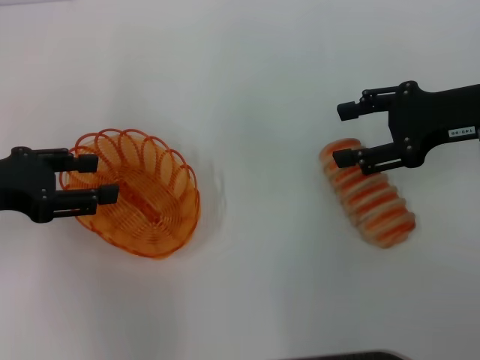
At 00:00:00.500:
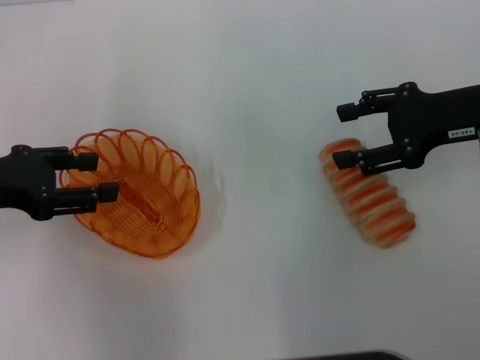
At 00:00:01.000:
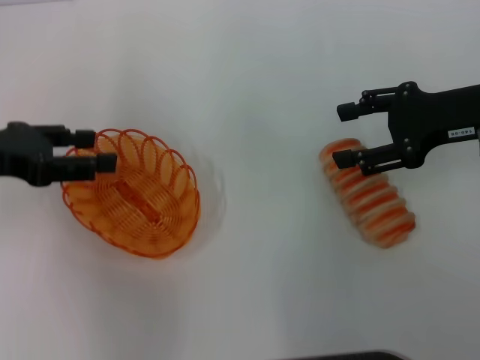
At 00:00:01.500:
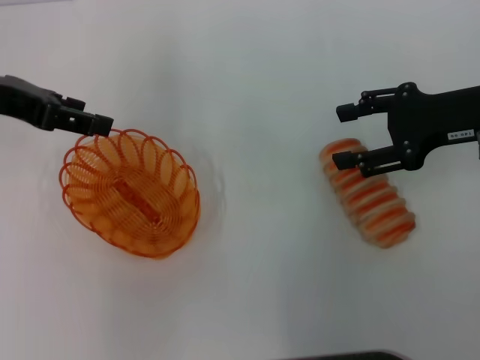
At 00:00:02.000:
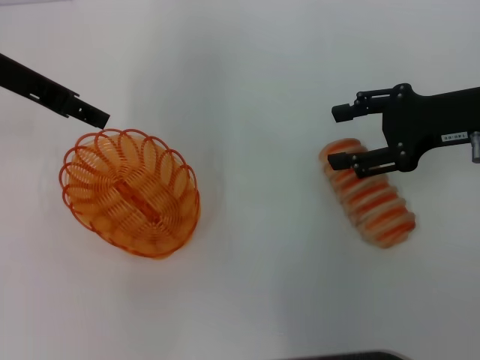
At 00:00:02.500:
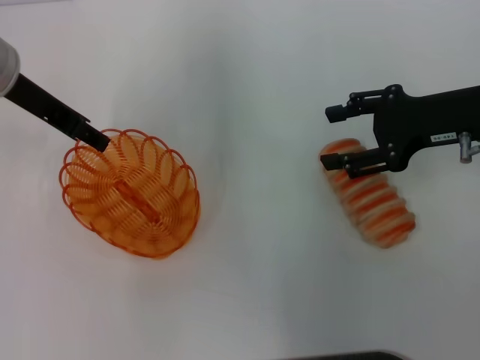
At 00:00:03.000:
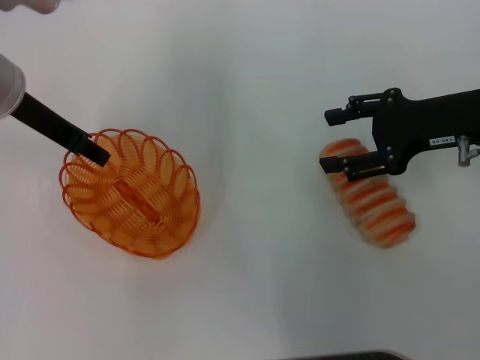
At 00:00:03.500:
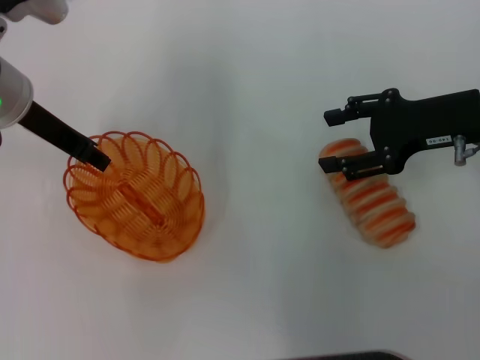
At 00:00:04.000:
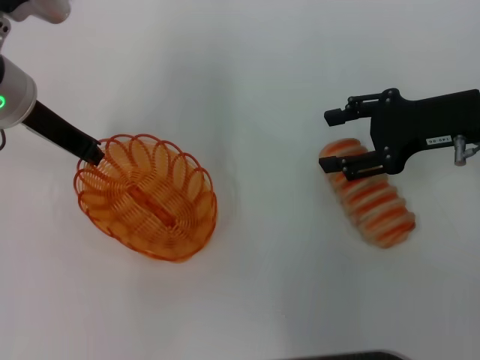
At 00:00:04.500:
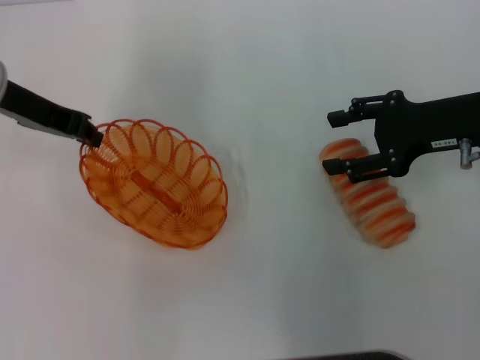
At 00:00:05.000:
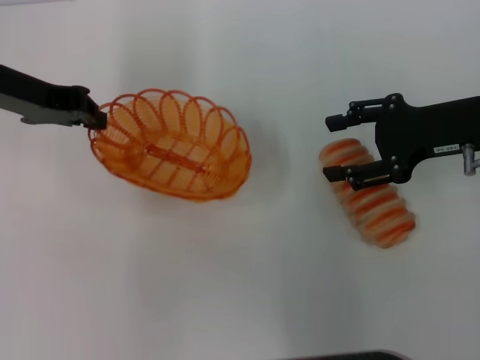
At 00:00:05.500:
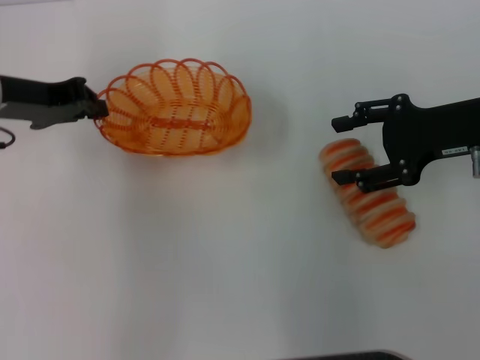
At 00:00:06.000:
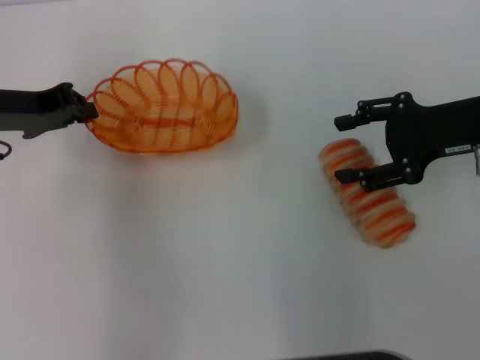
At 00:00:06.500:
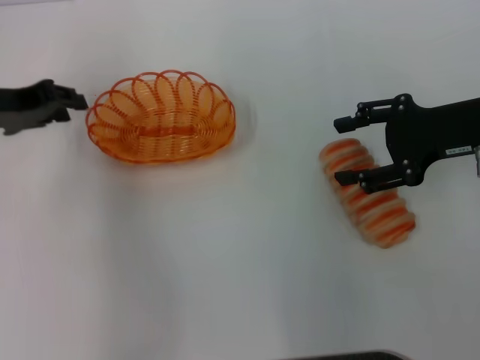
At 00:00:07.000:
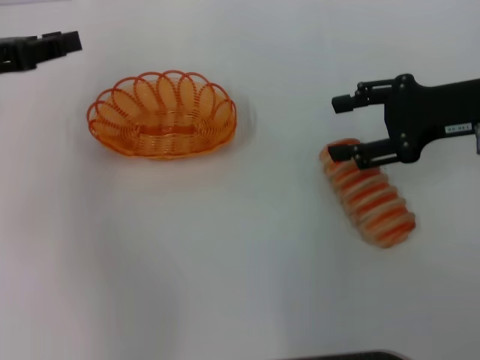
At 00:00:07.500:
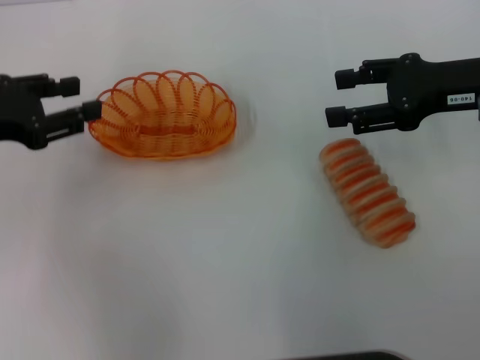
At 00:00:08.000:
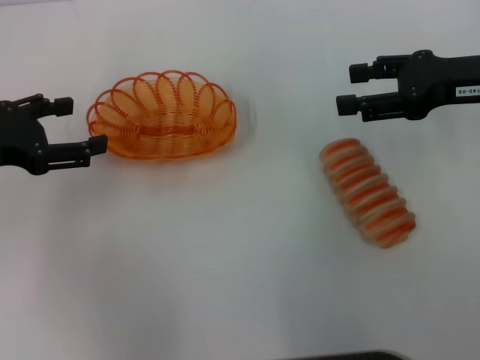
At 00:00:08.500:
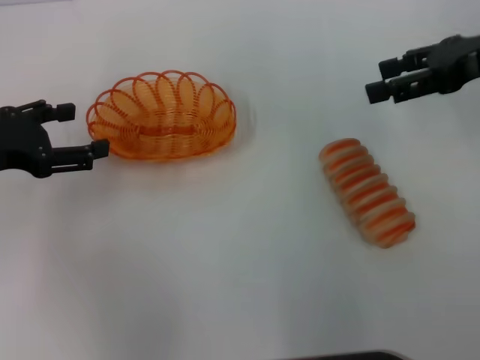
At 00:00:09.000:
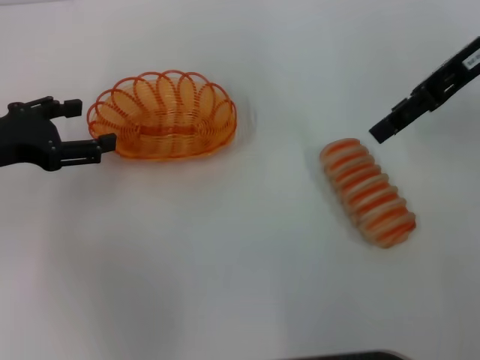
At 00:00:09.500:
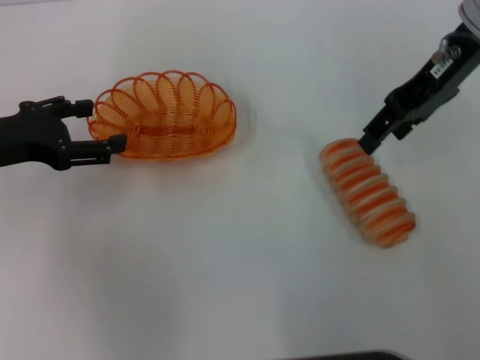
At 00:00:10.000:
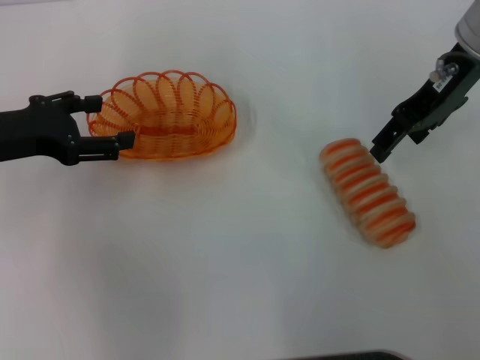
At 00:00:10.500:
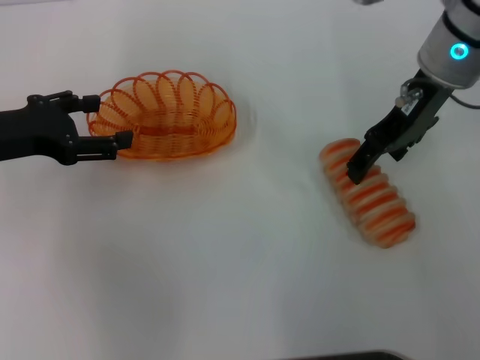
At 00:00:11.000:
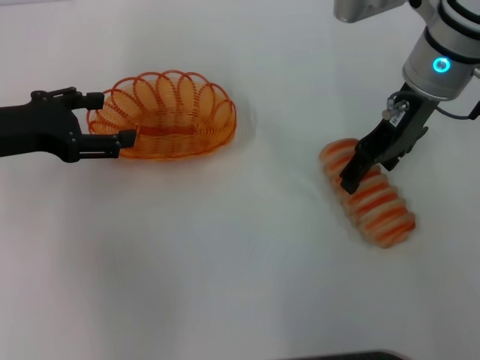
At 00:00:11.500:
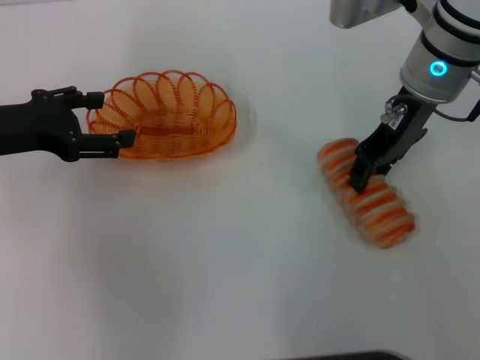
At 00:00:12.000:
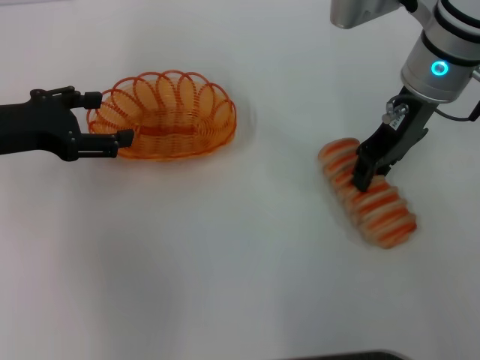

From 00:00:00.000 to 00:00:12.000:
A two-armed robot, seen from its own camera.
Step, from 00:00:00.000 to 00:00:04.500: Pick up the basket with the left gripper.
Step, from 00:00:05.000 to 00:00:06.500: Place the basket in the center of view with the left gripper.
From 00:00:00.000 to 00:00:02.000: The left gripper goes some 15 cm forward, upward and to the right.
From 00:00:02.000 to 00:00:04.000: The left gripper is displaced downward by roughly 5 cm, and closes its fingers.
From 00:00:04.000 to 00:00:06.000: The left gripper heads to the left, covering some 5 cm.
From 00:00:06.000 to 00:00:08.000: The left gripper heads backward, covering roughly 5 cm, and opens.
From 00:00:08.000 to 00:00:10.000: The right gripper moves to the left and forward, about 10 cm.
From 00:00:10.000 to 00:00:12.000: The right gripper shifts by some 5 cm, and closes up.

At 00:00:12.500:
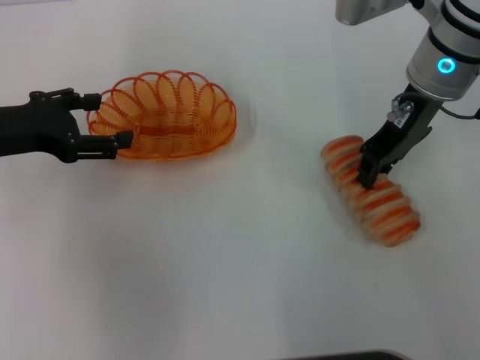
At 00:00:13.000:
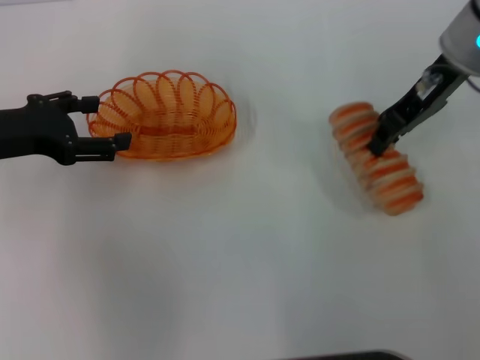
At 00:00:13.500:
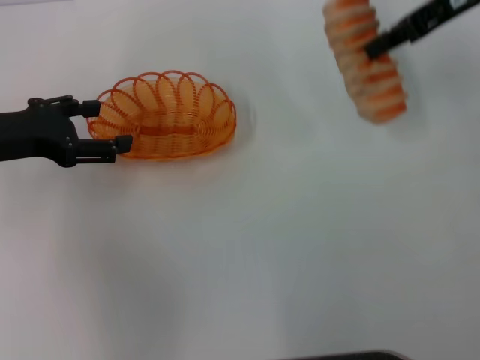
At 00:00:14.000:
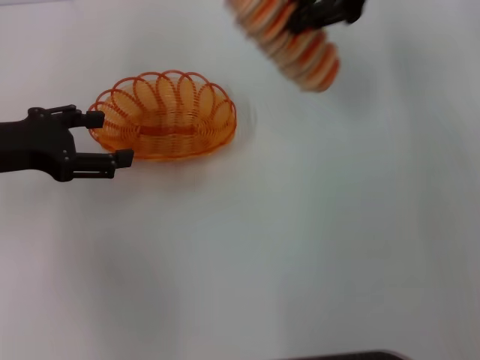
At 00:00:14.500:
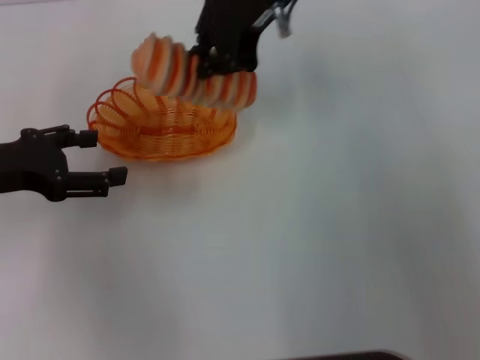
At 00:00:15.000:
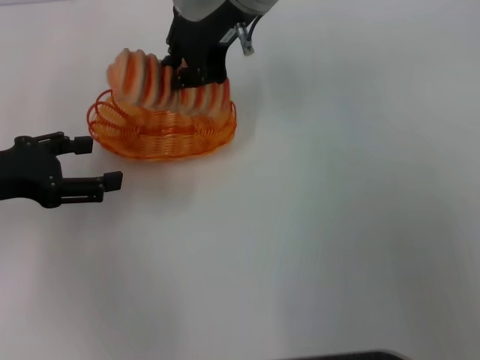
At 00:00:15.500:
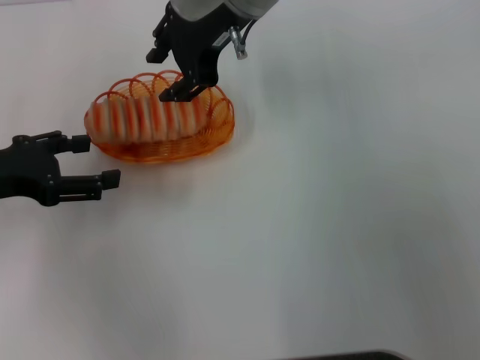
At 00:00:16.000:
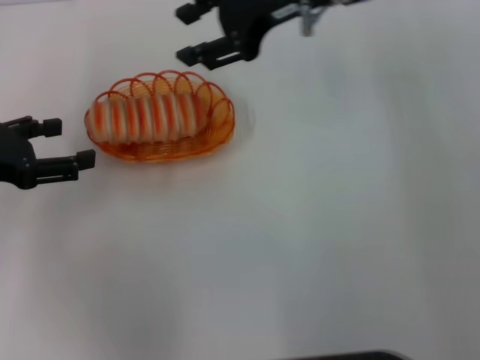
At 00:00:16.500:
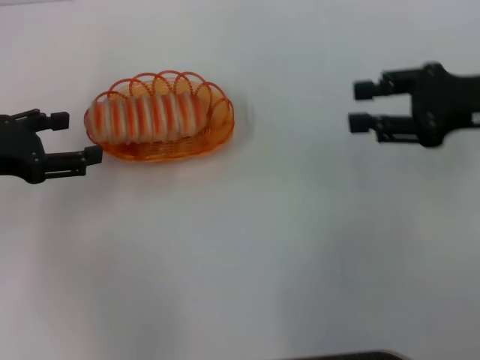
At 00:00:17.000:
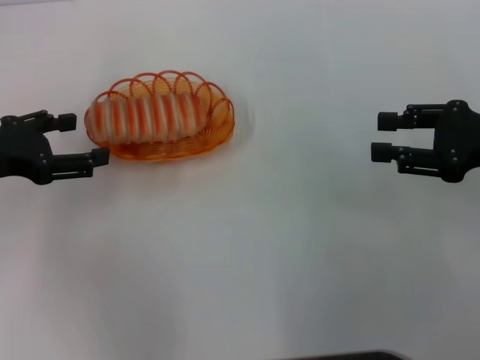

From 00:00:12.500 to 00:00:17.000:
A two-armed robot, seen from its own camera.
Step, from 00:00:13.500 to 00:00:15.500: Place the long bread into the basket with the right gripper.
From 00:00:12.500 to 00:00:14.500: The right gripper is displaced to the left and upward by some 15 cm.
From 00:00:14.500 to 00:00:17.000: The right gripper travels to the right, backward and downward by approximately 30 cm, and opens up.
